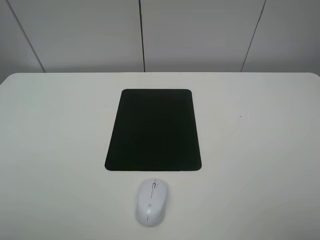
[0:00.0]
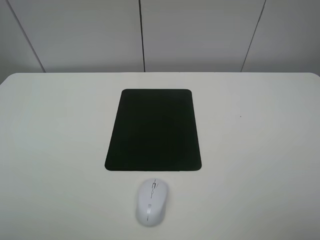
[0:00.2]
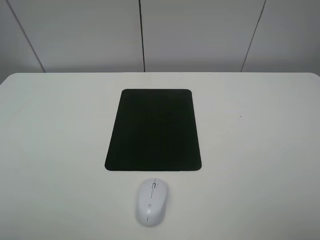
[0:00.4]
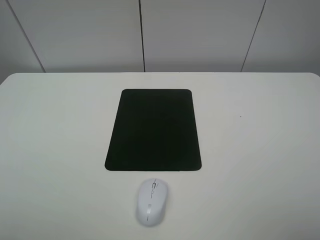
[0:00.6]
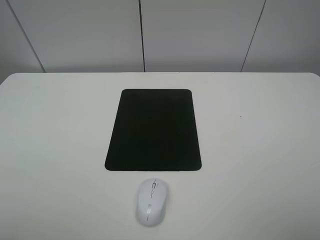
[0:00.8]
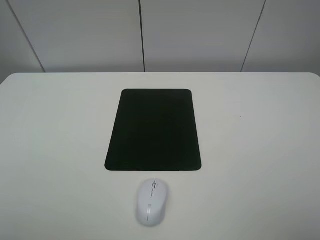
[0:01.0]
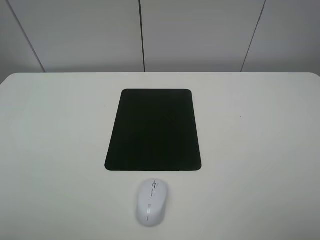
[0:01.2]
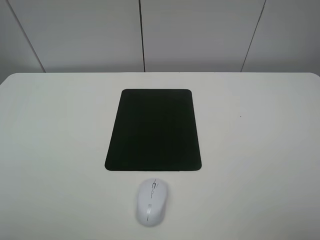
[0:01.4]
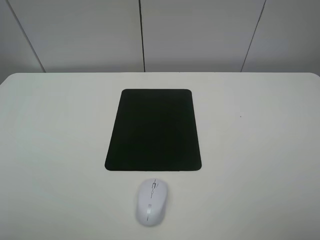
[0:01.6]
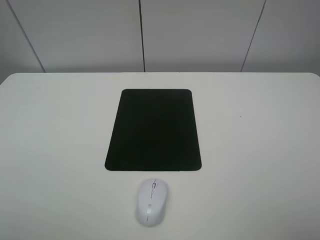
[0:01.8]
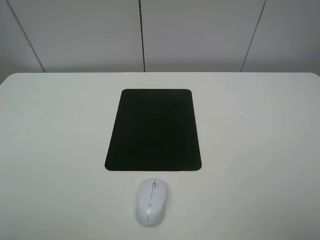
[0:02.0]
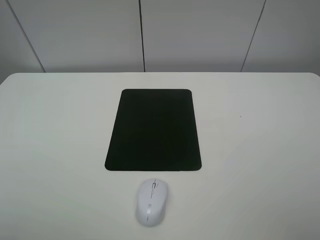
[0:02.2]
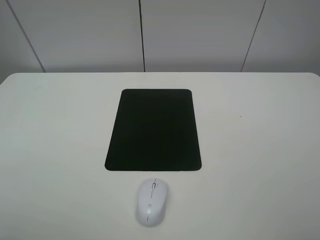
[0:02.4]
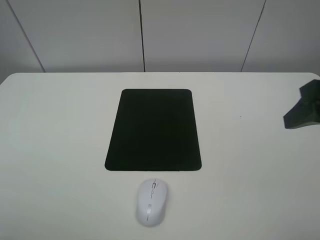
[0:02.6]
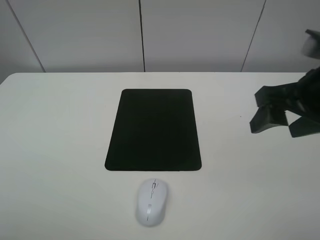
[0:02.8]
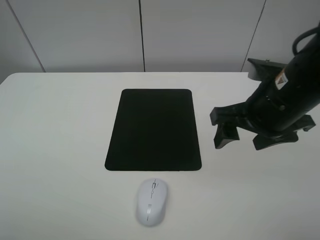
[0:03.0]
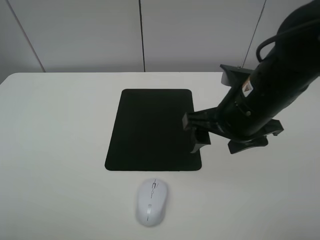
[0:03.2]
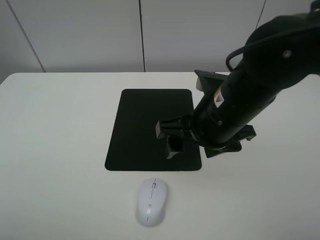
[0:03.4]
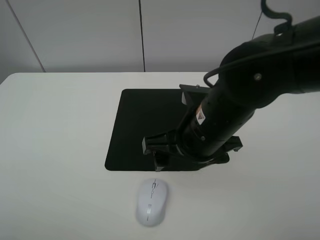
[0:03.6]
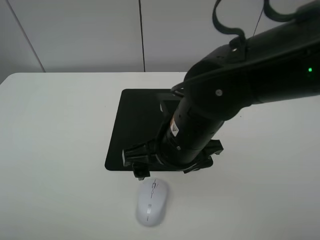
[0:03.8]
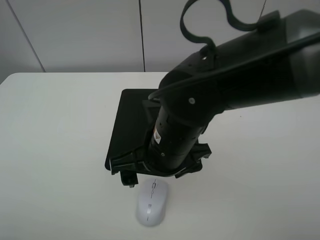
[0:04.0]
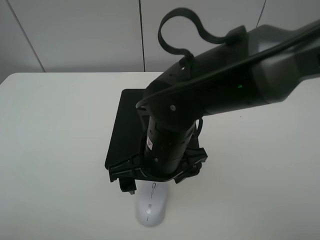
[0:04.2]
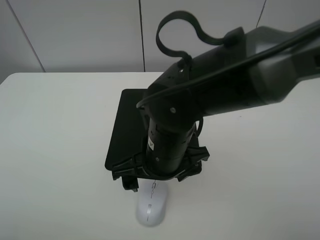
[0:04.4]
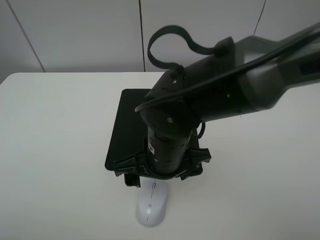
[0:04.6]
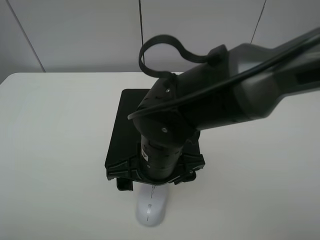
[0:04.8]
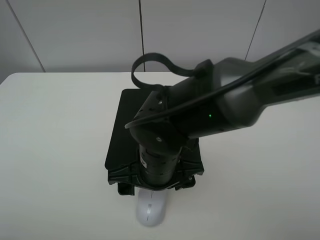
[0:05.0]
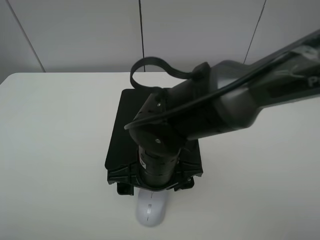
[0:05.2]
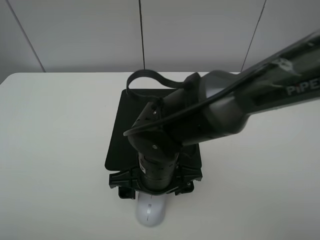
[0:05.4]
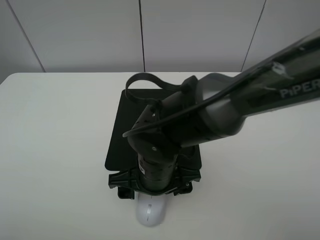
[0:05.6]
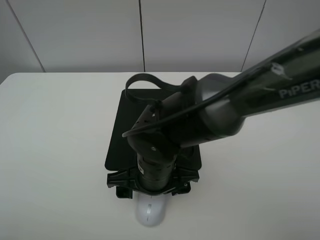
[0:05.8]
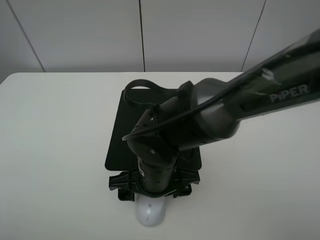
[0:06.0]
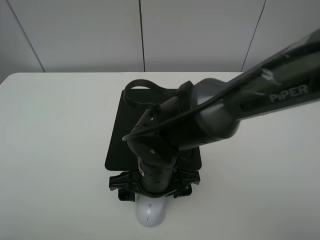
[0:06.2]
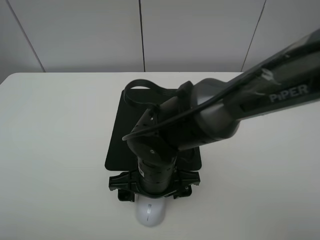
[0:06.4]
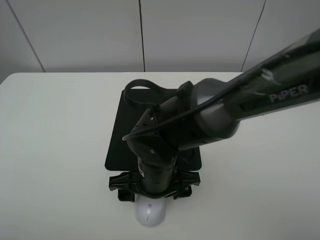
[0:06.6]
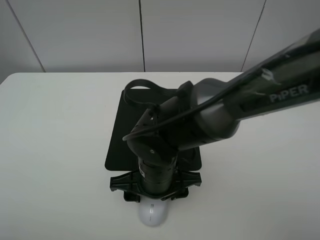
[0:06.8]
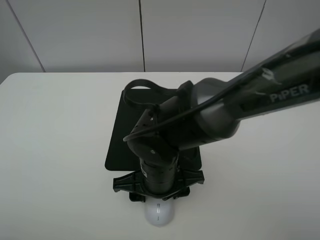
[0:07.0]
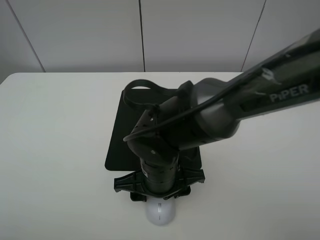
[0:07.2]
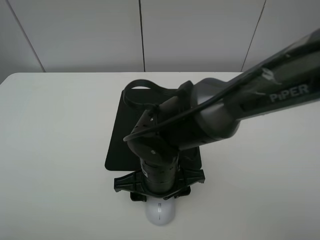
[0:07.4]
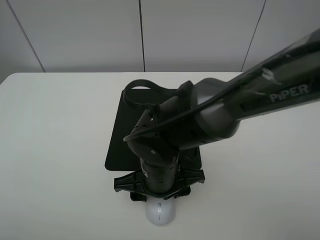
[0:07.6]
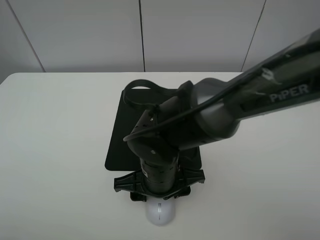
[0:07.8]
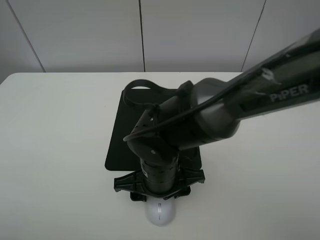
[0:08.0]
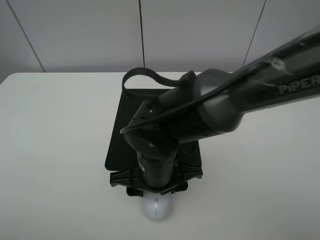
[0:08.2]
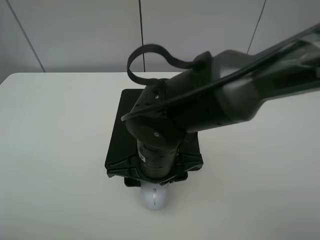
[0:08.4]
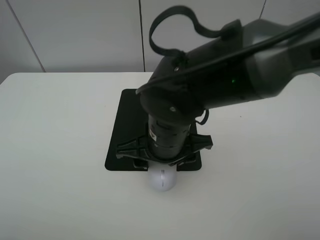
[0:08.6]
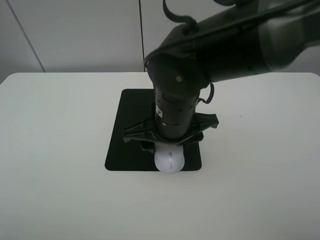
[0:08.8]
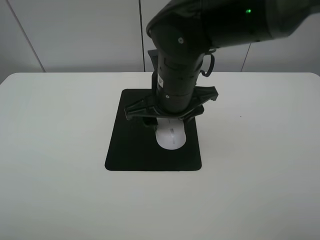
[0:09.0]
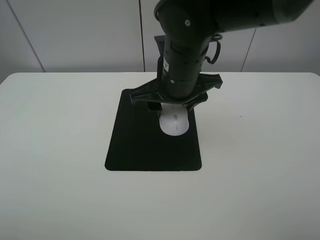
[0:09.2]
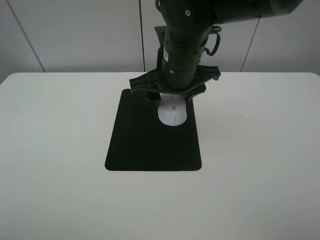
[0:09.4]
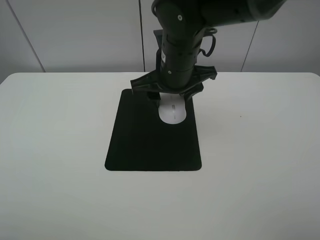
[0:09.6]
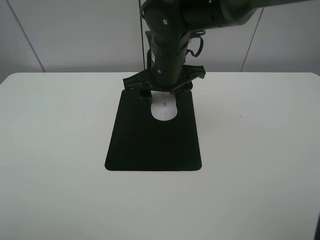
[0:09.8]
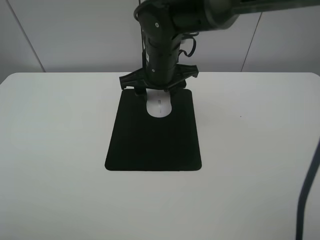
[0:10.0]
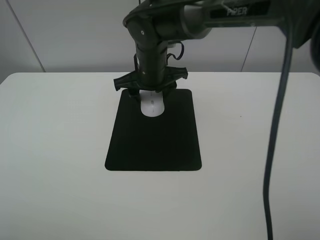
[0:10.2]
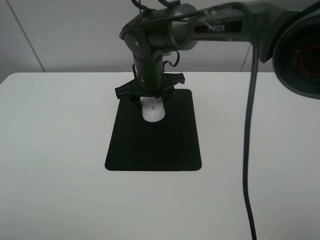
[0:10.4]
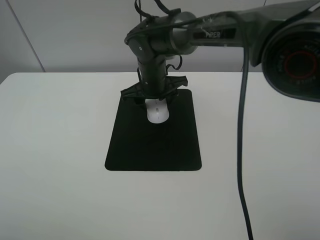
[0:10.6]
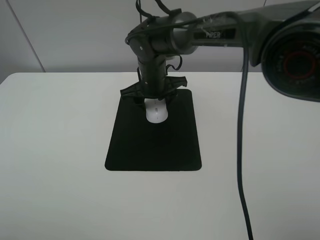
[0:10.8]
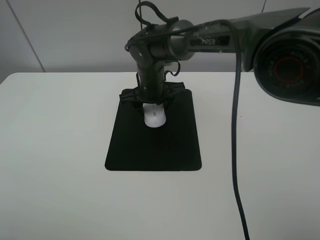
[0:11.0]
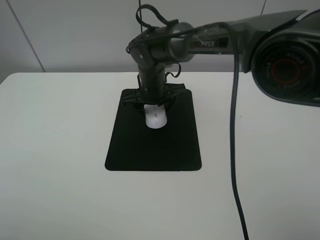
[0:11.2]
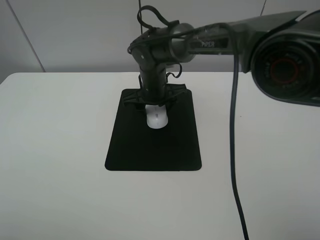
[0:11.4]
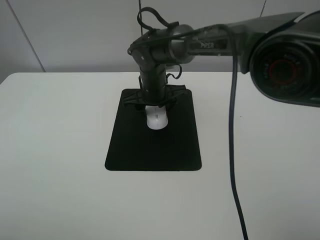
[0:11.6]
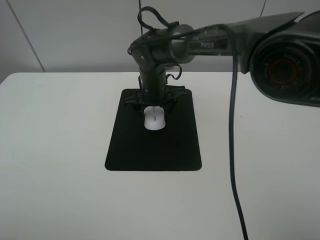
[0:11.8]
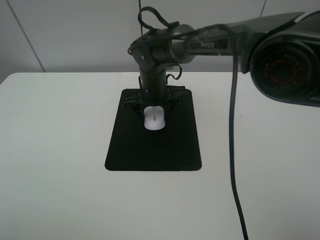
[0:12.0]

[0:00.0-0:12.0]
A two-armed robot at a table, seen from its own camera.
Step, 0:00.0 to 0:07.8: Grasp the mouse with the right gripper.
0:00.0 to 0:01.6: Both grippers stay about where they are.
0:01.6 to 0:03.0: The right gripper heads forward and to the left, covering some 25 cm.
0:03.0 to 0:04.4: The right gripper travels to the left and downward by about 15 cm, and opens up.
0:04.4 to 0:06.0: The right gripper moves downward, about 5 cm.
0:06.0 to 0:07.6: The right gripper closes.
0:07.6 to 0:09.0: The right gripper moves upward and forward, approximately 15 cm.
0:09.0 to 0:10.4: The right gripper heads forward and downward, covering about 15 cm.
0:10.4 to 0:12.0: The right gripper opens up.

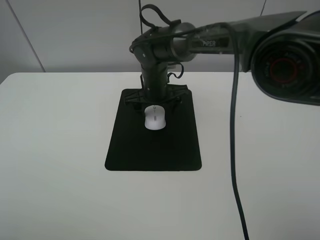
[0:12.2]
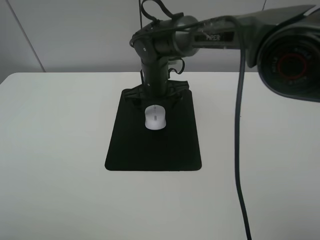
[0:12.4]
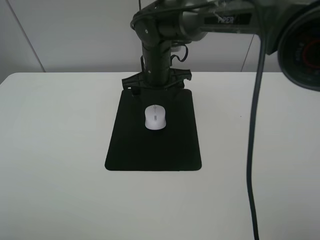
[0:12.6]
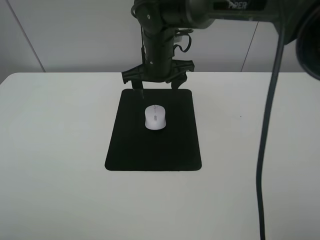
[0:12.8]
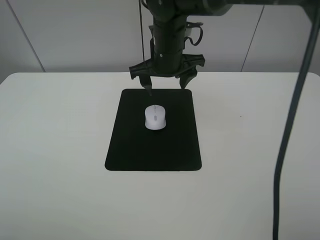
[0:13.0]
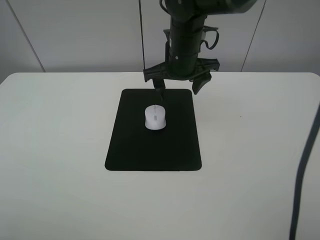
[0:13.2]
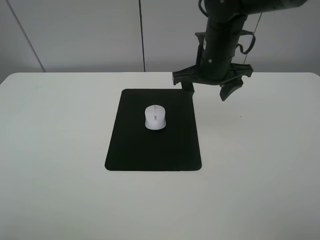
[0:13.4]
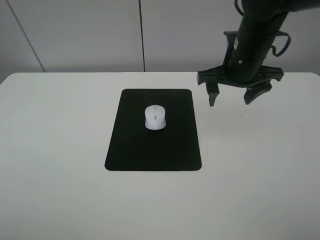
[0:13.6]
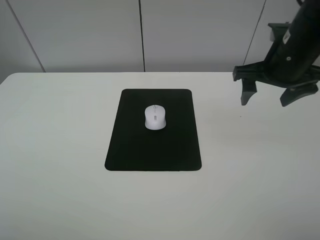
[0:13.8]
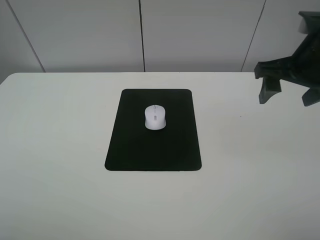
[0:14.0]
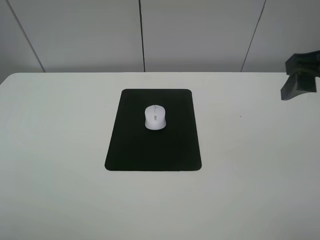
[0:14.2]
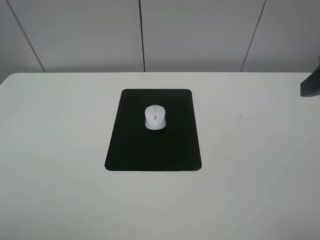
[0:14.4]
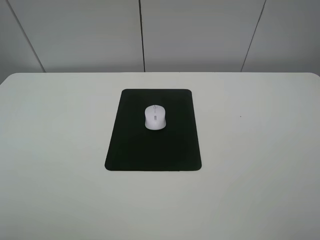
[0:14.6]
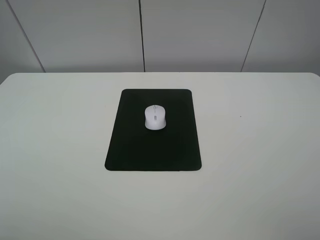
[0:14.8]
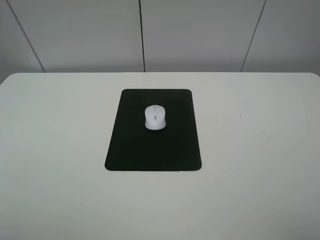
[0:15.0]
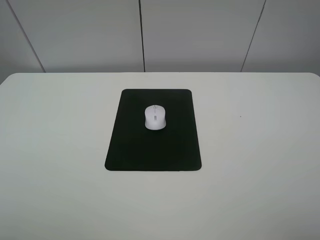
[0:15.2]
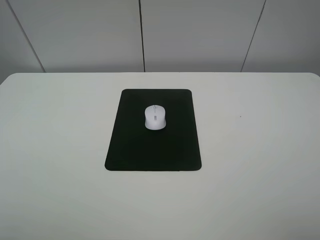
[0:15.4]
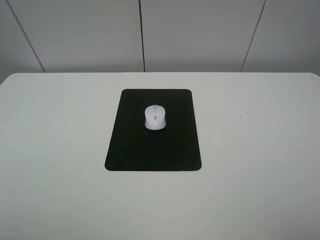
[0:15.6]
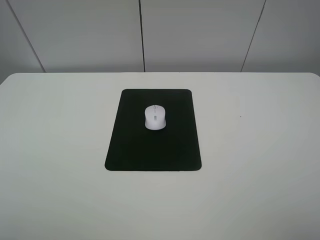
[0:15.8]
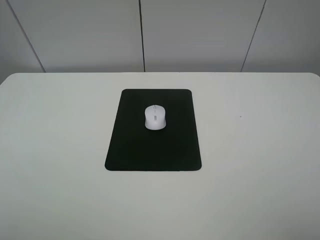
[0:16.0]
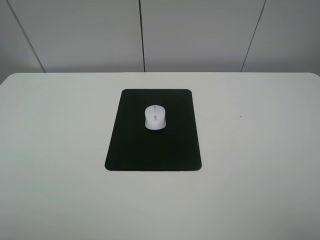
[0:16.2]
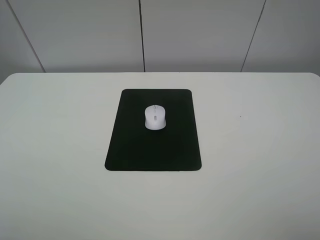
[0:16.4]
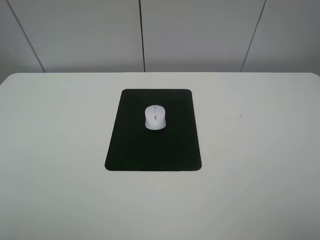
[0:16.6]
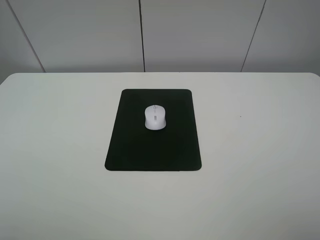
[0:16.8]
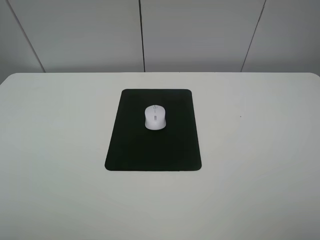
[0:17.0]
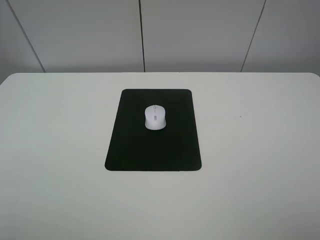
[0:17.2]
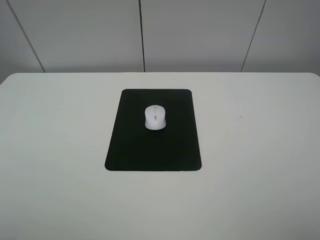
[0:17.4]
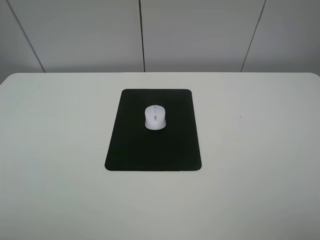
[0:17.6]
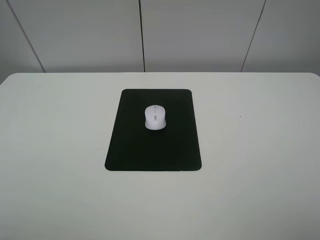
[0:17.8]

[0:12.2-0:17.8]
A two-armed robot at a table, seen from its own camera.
0:12.2 to 0:13.6: The right gripper shifts roughly 20 cm to the right and upward.
0:13.6 to 0:15.0: The right gripper moves backward, to the right and upward, about 35 cm.
